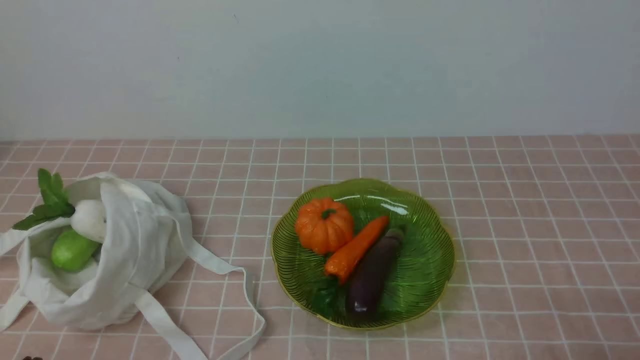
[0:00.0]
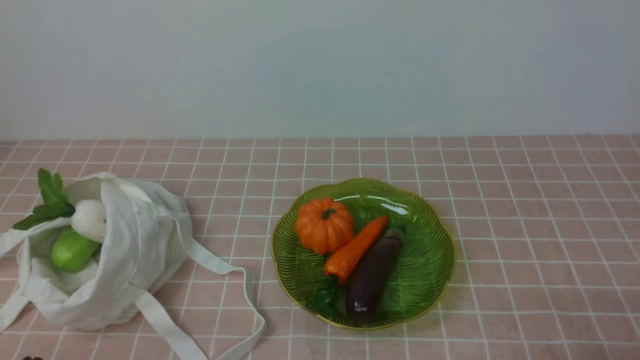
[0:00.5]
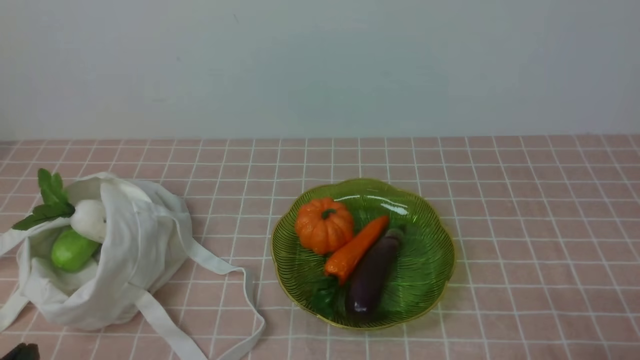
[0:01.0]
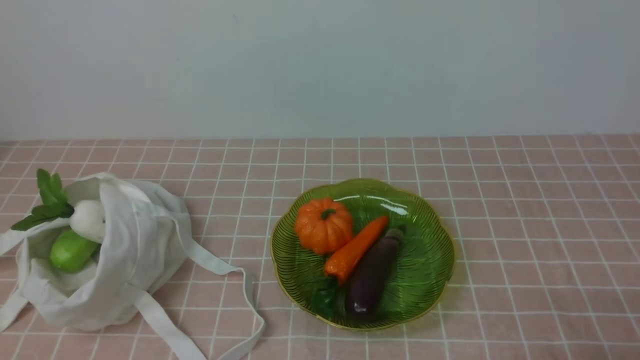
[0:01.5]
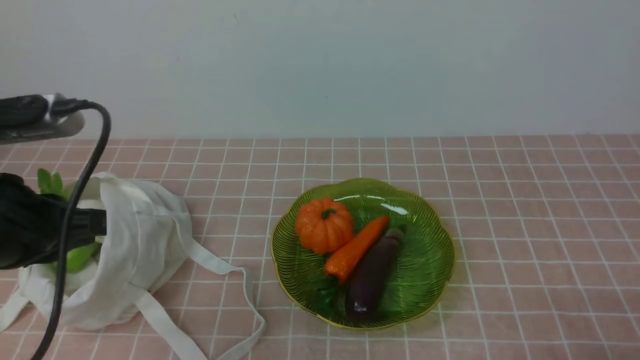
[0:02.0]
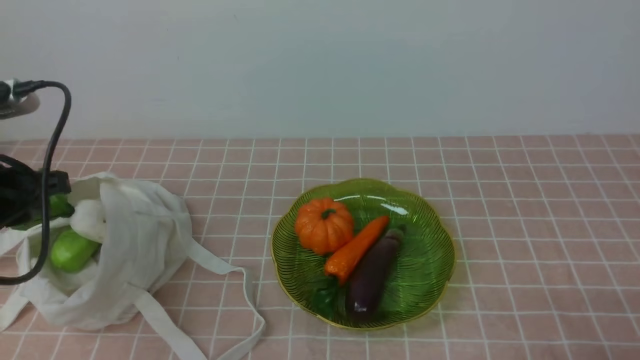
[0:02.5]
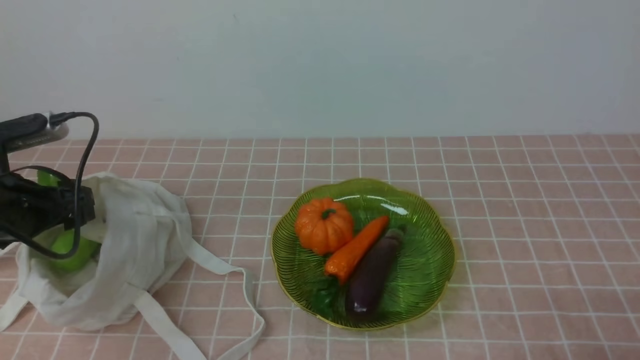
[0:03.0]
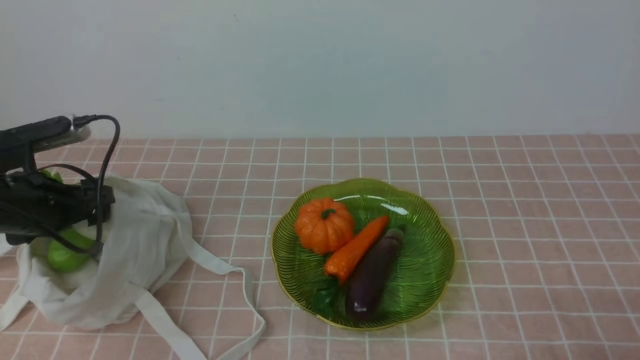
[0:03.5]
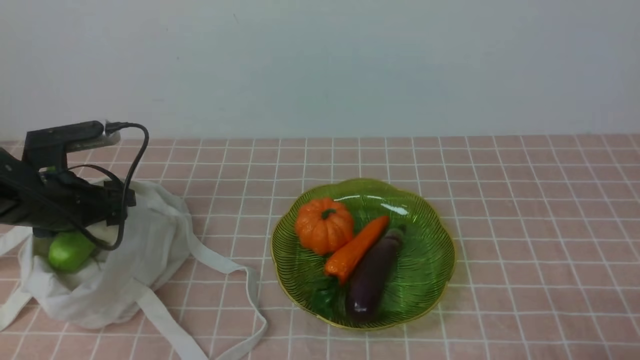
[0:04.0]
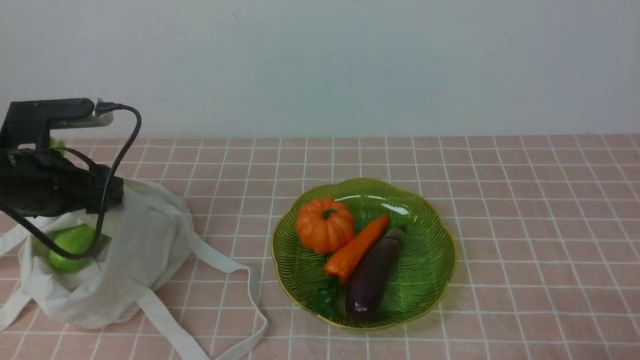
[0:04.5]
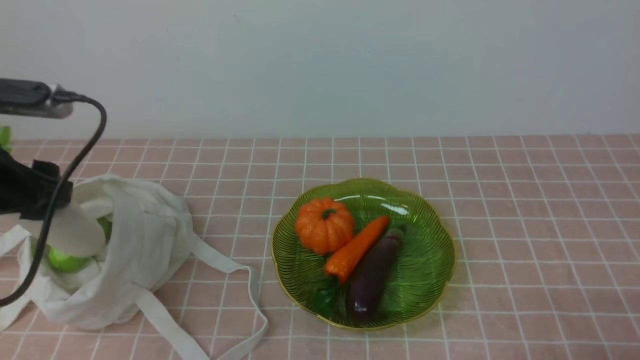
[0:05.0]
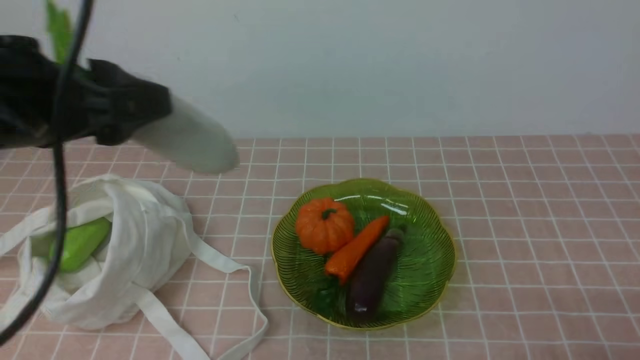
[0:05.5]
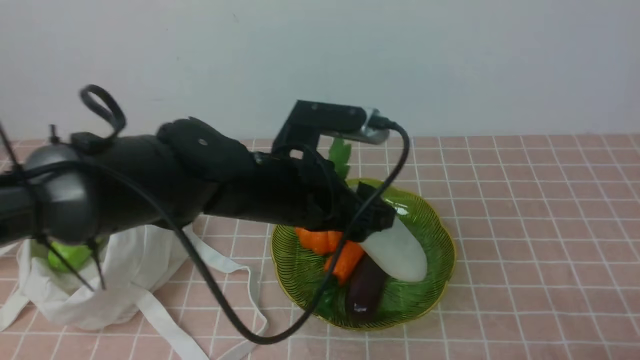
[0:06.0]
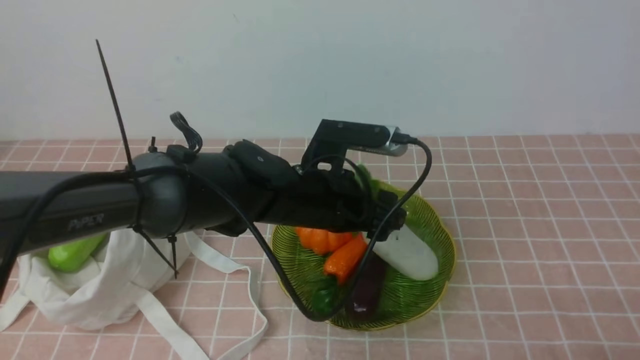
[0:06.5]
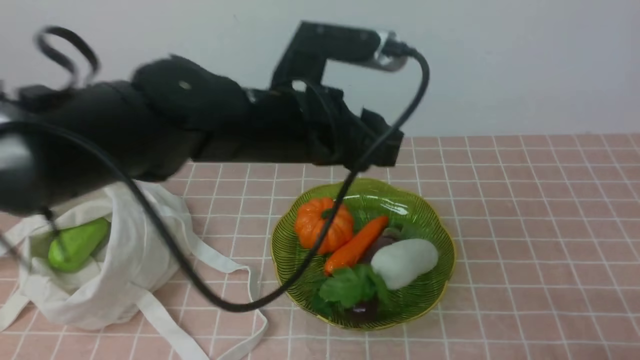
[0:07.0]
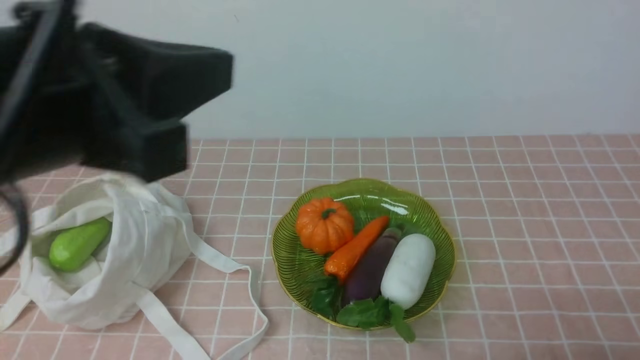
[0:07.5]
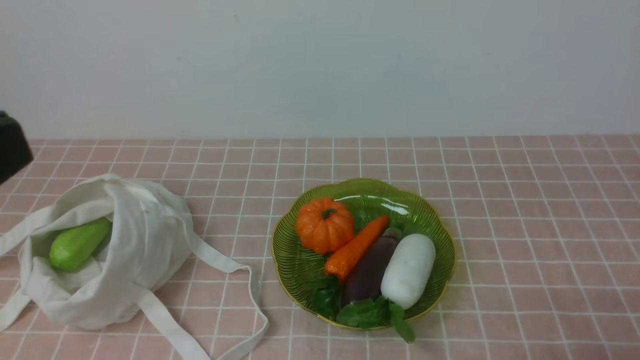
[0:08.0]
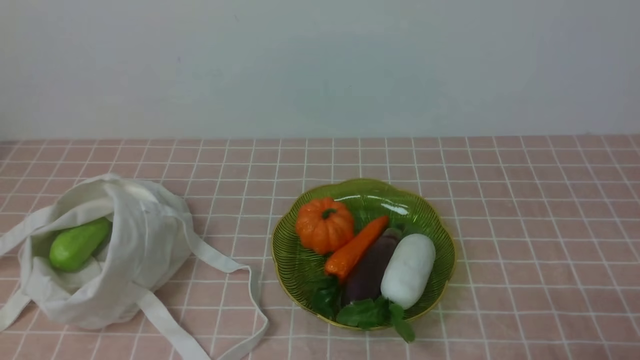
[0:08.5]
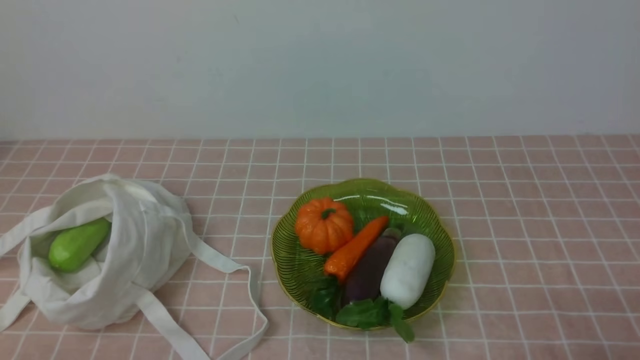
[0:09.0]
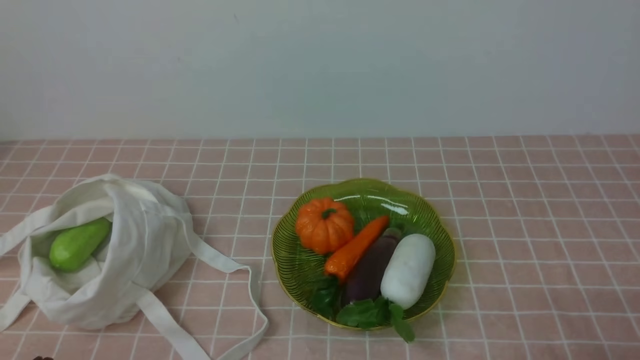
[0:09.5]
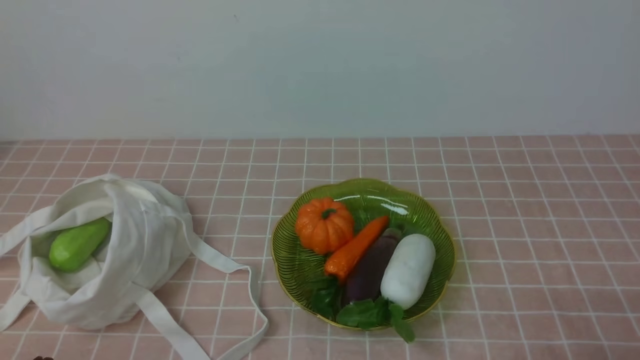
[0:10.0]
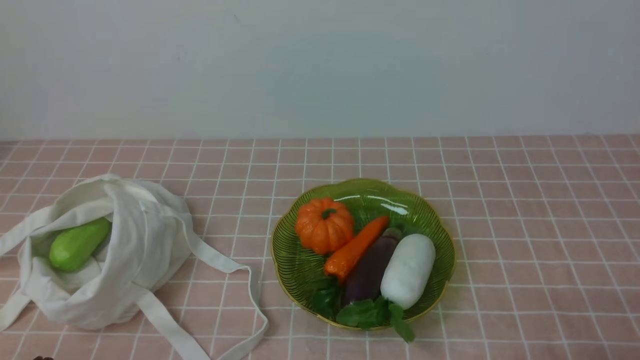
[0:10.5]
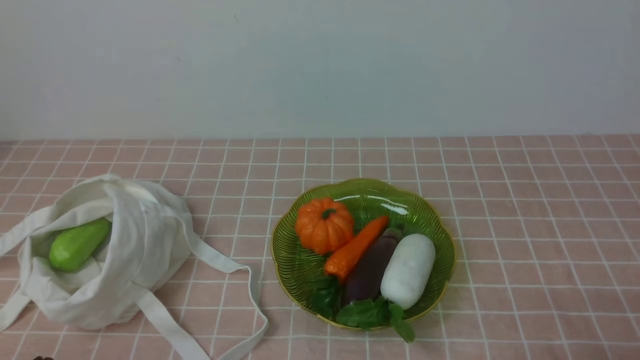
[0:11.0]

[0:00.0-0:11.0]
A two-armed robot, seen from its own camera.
Task of the whole recording: take vegetables from bag on pink coffee tablecloth place on plate.
Step, 0:00.0 to 0:04.0: Grasp the radish with left gripper.
Step, 0:04.5 to 0:07.0: Place the radish on the plate with left gripper.
0:02.0 to 0:03.5: The left gripper heads forward, downward and to the left, covering approximately 20 cm, and opens.
0:03.5 to 0:05.5: The left gripper moves upward, backward and to the right, approximately 20 cm.
0:05.5 to 0:07.5: The left gripper is displaced to the right by approximately 10 cm, and closes its fingers.
0:07.5 to 0:09.0: The left gripper moves downward, backward and to the left, approximately 30 cm.
